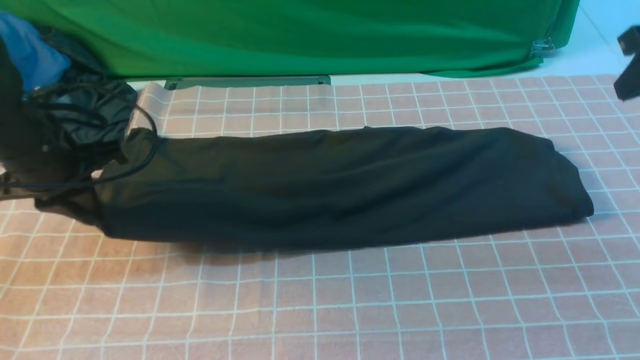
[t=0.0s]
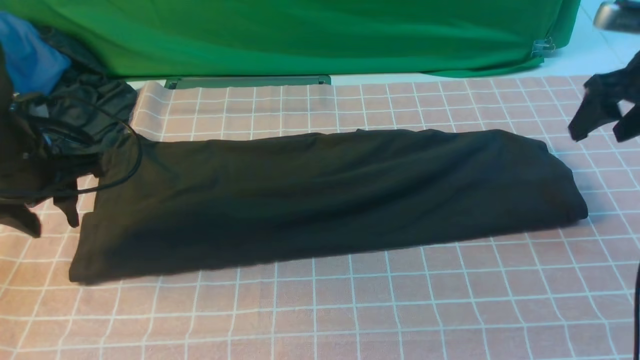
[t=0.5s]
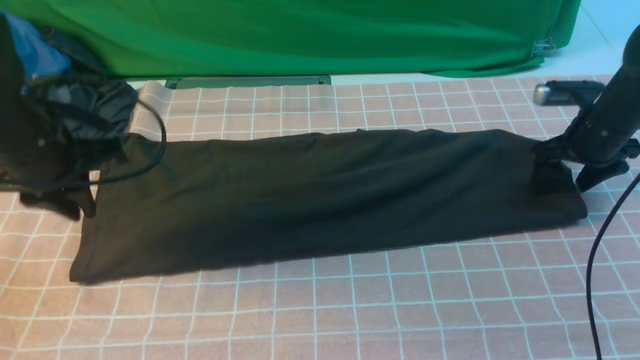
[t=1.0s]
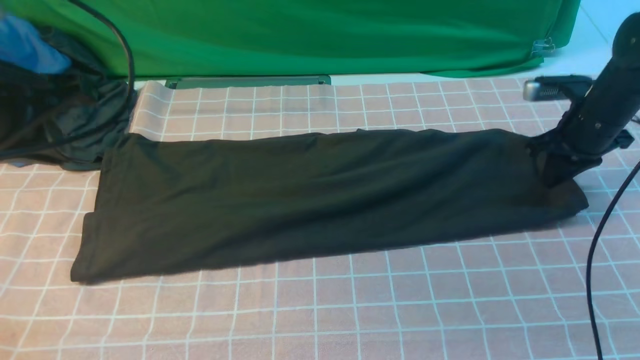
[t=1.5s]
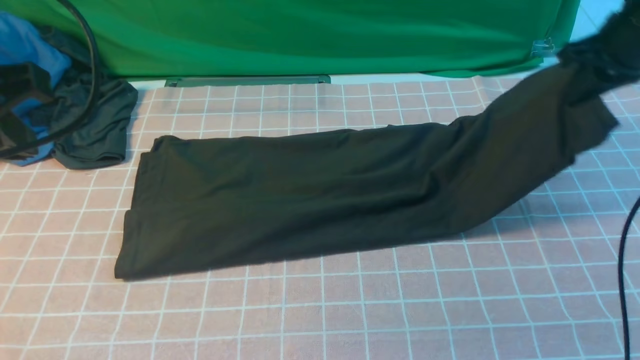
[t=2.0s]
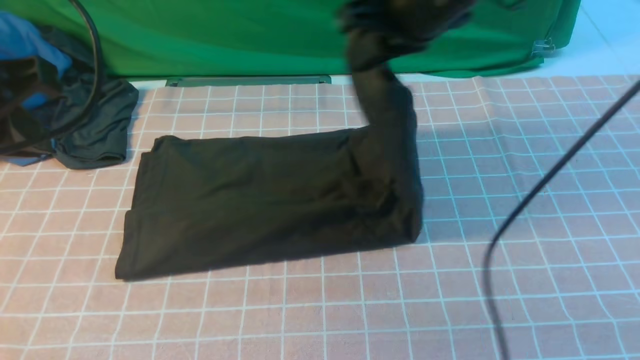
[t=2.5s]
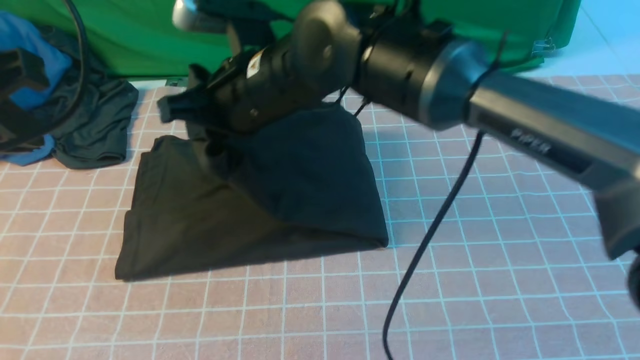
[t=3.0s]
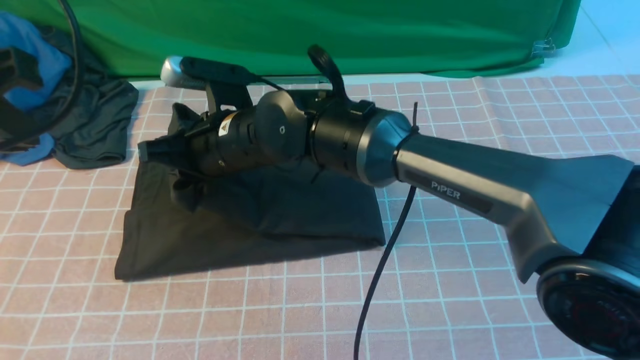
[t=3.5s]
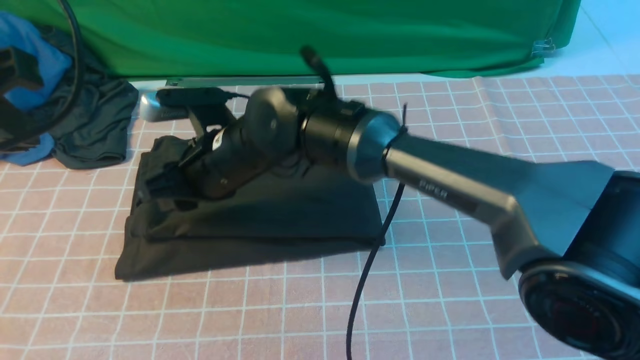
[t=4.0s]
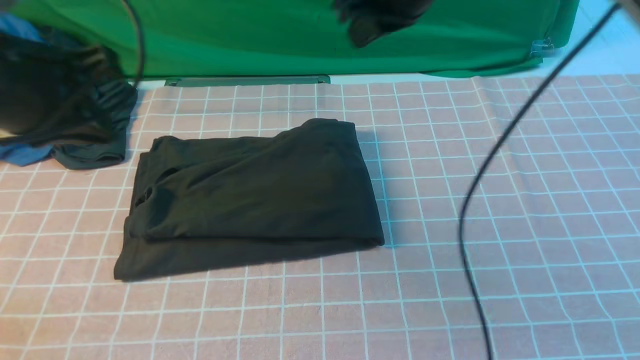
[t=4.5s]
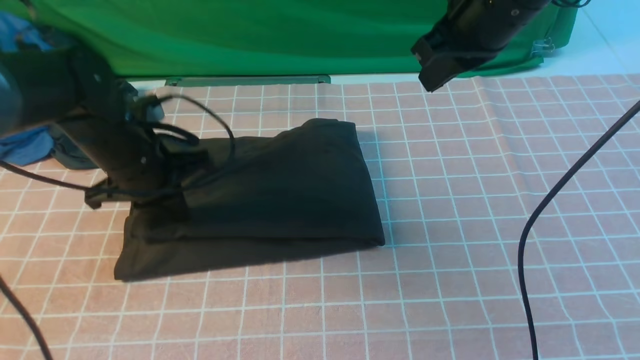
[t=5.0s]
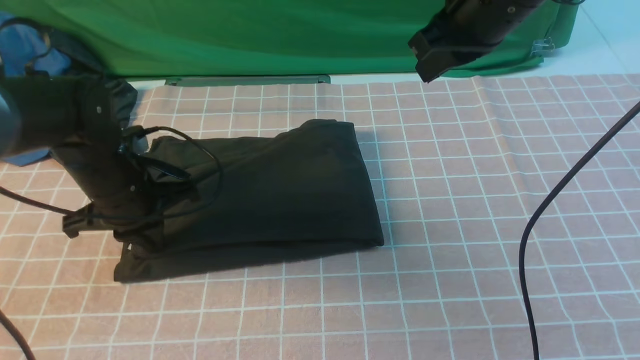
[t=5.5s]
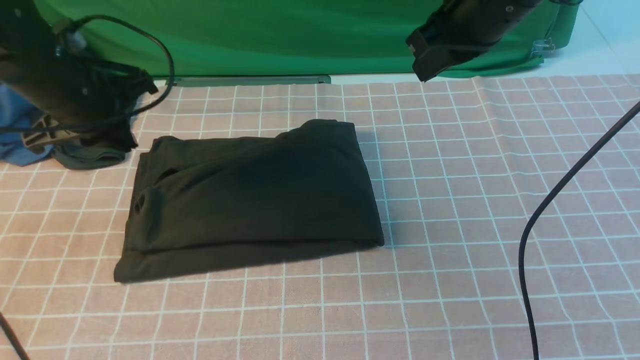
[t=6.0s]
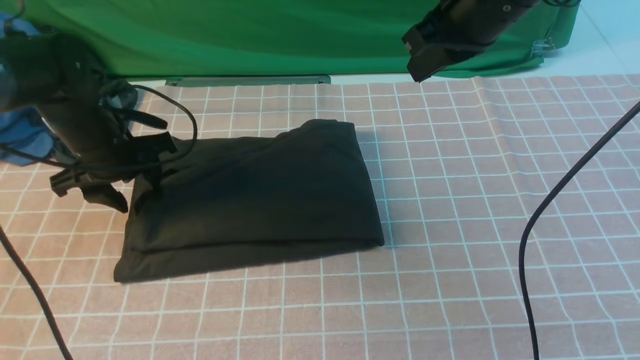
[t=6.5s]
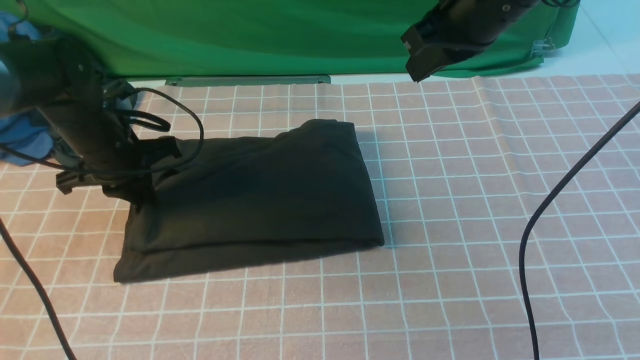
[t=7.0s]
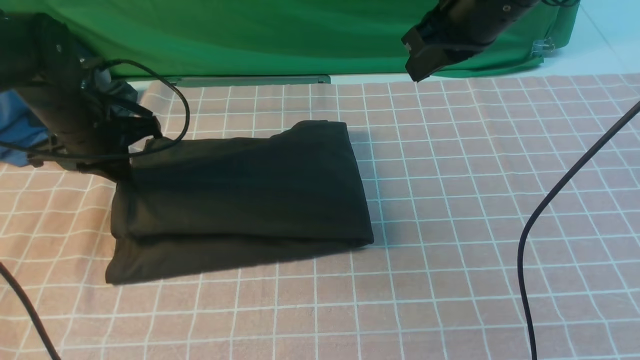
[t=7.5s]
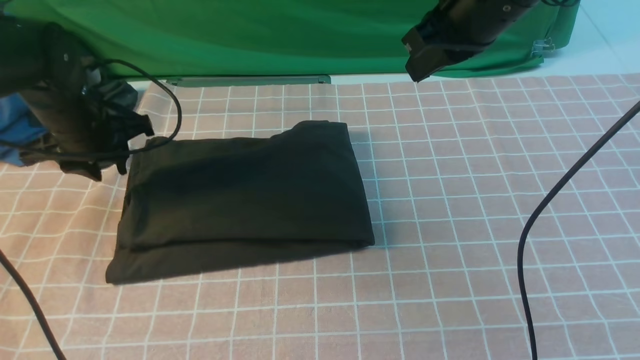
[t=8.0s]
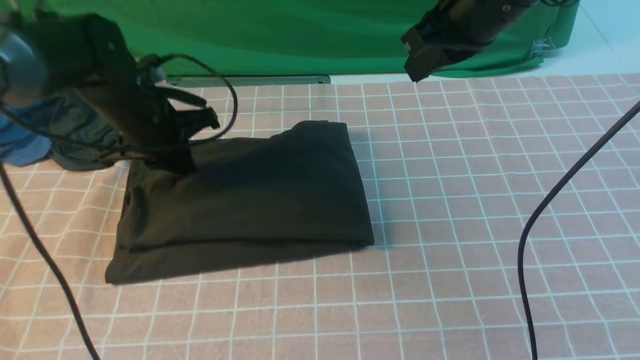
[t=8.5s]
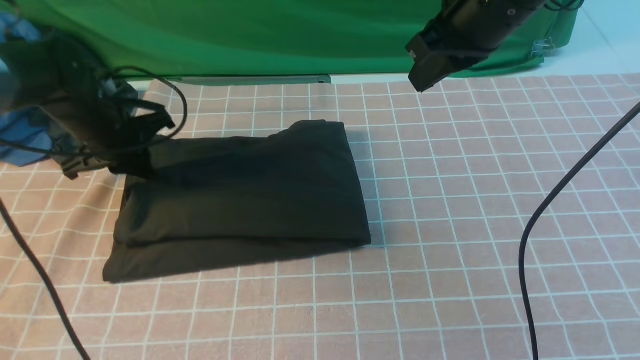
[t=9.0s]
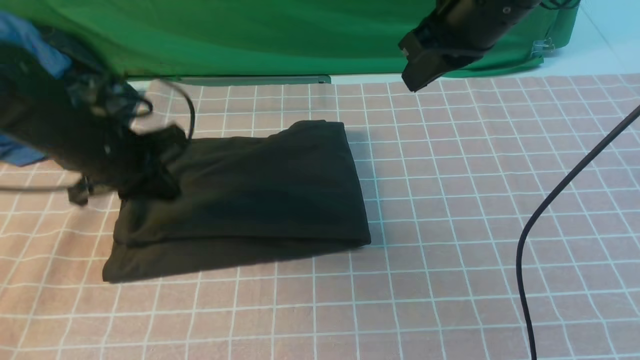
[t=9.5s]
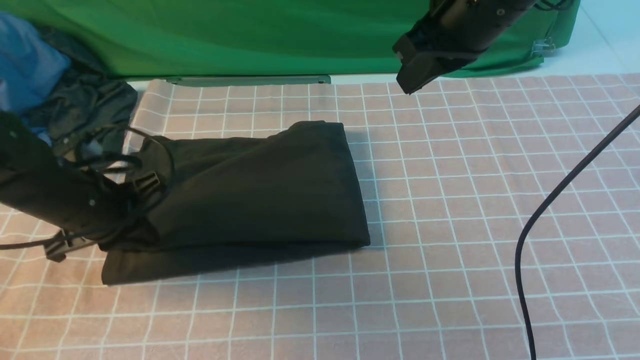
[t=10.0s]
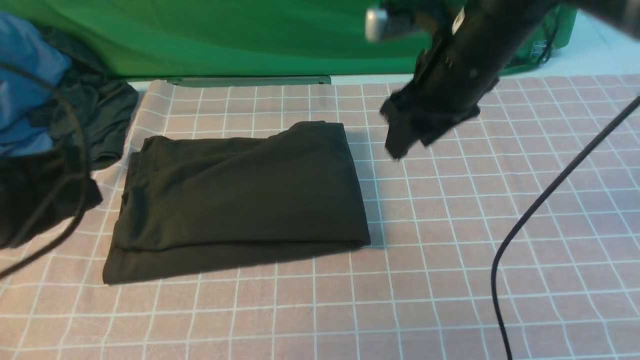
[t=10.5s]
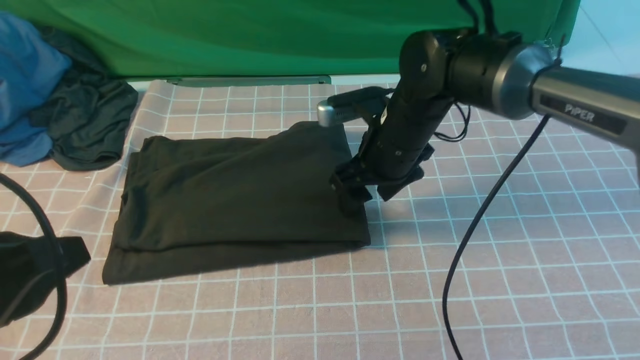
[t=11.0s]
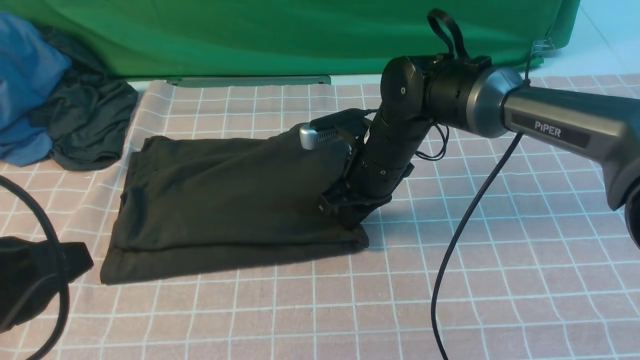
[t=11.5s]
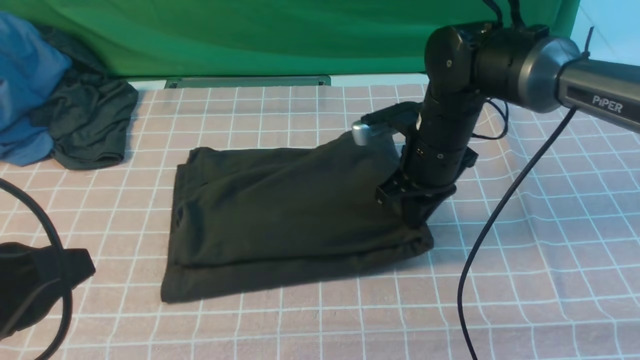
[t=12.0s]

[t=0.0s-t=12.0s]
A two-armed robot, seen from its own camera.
Step, t=1.5s to t=4.0s: use the right arm to drag the right edge of the fabric to the left and folds it over the left edge.
t=0.0s to t=2.0s: The left gripper heads upward and backward, covering some 20 cm, and opens and closes again; the right gripper shifts some 5 cm to the left, travels downward and back again, about 15 cm each way, and opens, then closes again.
t=2.0s to t=4.0s: The right gripper is displaced to the left by roughly 35 cm.
t=4.0s to t=6.0s: The right gripper shifts some 25 cm to the right and upward, and closes up; the left gripper shifts some 25 cm forward and downward.
t=6.0s to t=8.0s: The left gripper opens up.
t=8.0s to t=10.0s: The left gripper moves backward, approximately 10 cm, and closes.
t=10.0s to t=12.0s: The right gripper moves downward, some 15 cm, and opens, then closes again. The left gripper goes about 20 cm backward and upward.

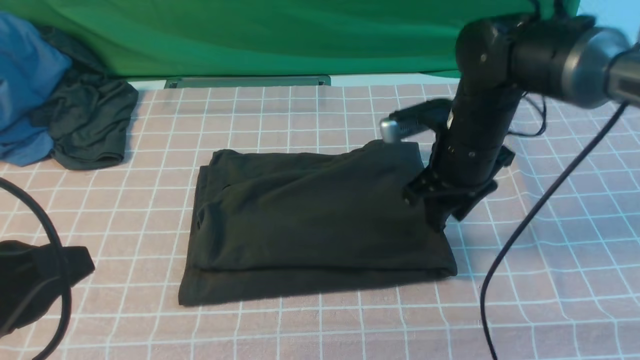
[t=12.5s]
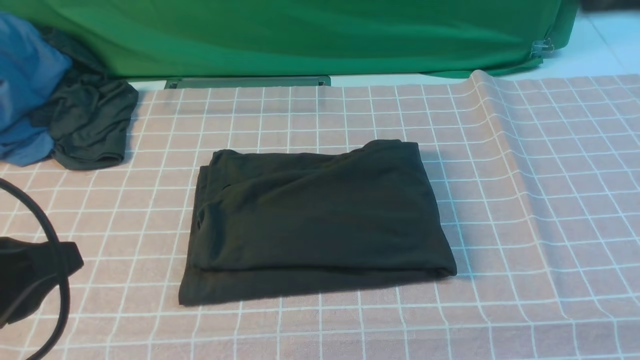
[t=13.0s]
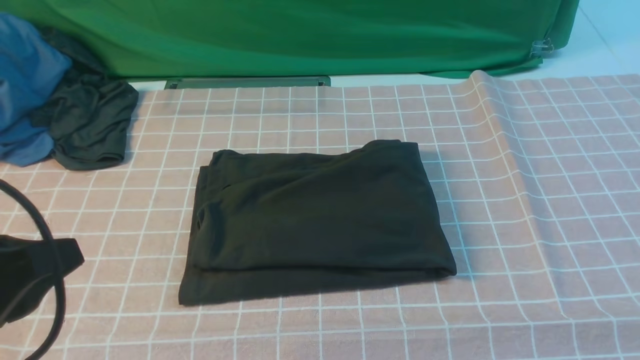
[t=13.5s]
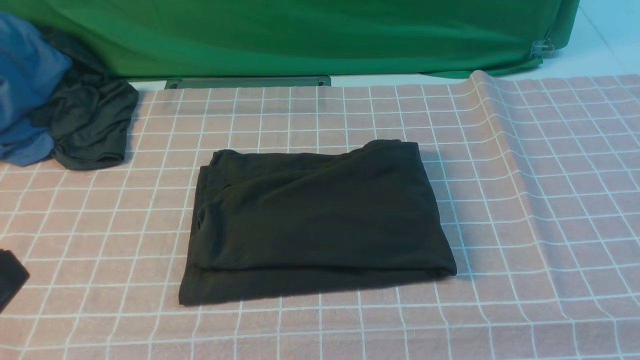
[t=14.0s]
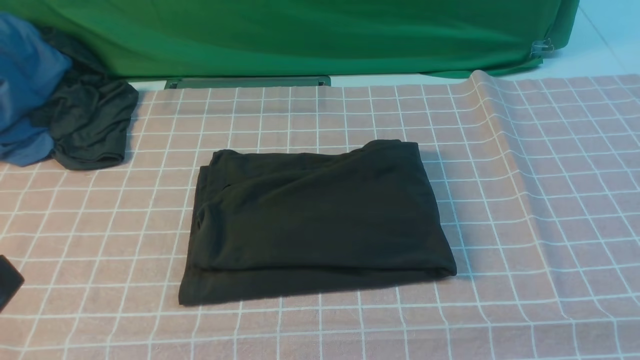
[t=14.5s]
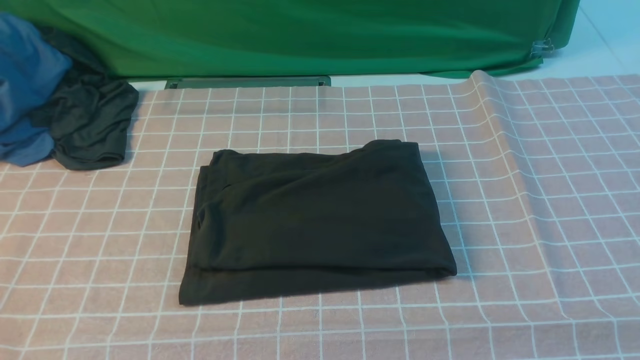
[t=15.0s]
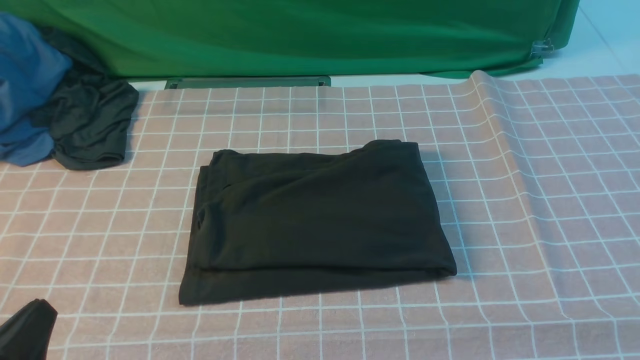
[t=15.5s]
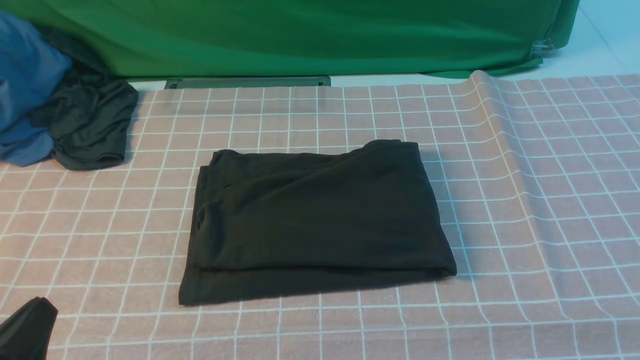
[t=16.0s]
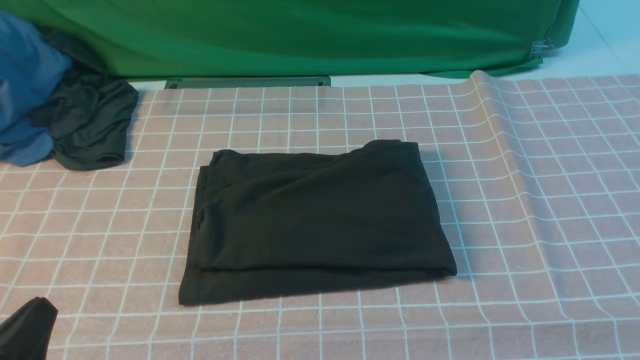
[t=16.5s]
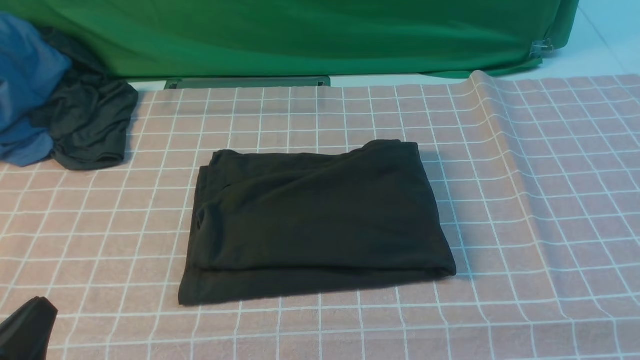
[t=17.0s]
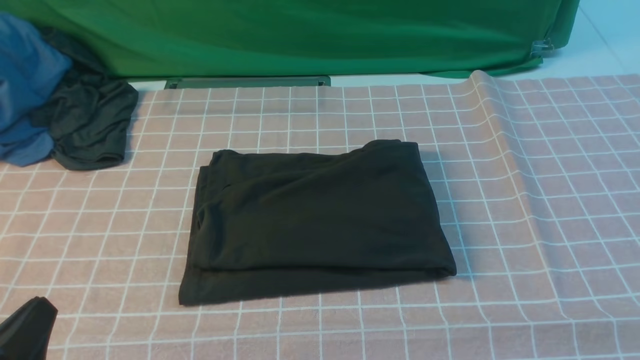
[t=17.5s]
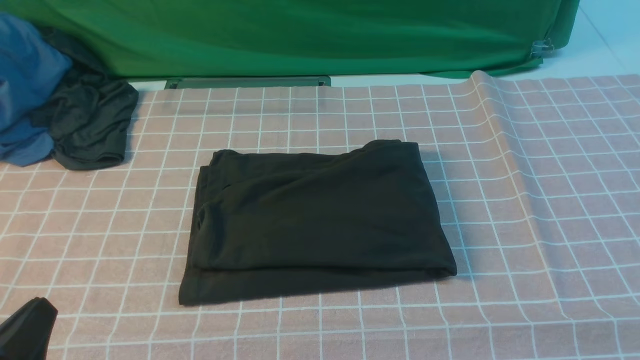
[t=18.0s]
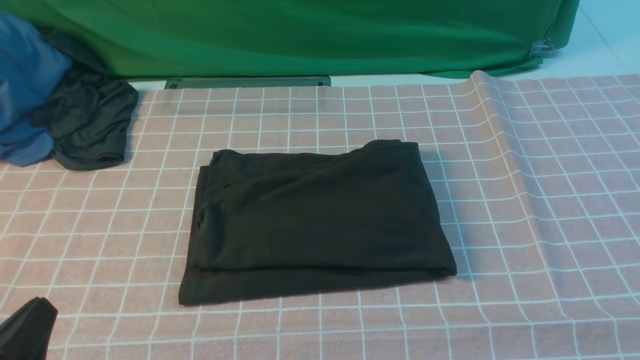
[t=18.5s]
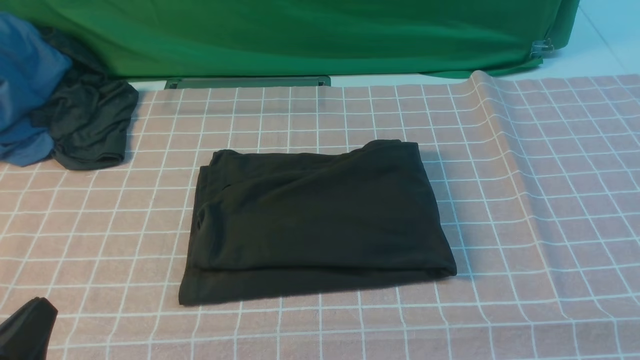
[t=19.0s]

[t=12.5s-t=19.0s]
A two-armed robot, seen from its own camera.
t=12.5s to t=14.5s: The left gripper shifts some 10 cm backward; the right gripper goes some 35 cm backward and to the right.
t=14.5s to t=17.0s: The left gripper goes roughly 15 cm downward.
